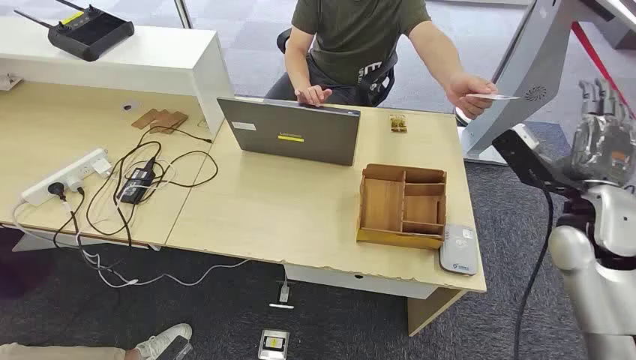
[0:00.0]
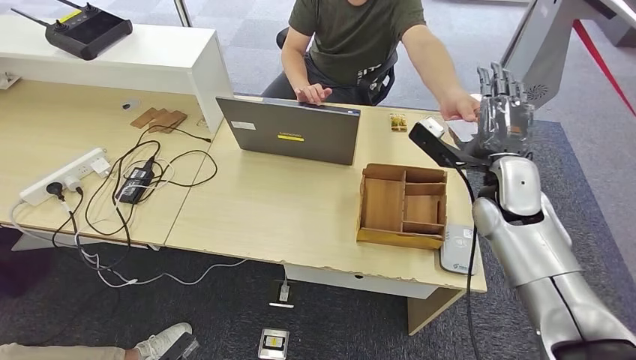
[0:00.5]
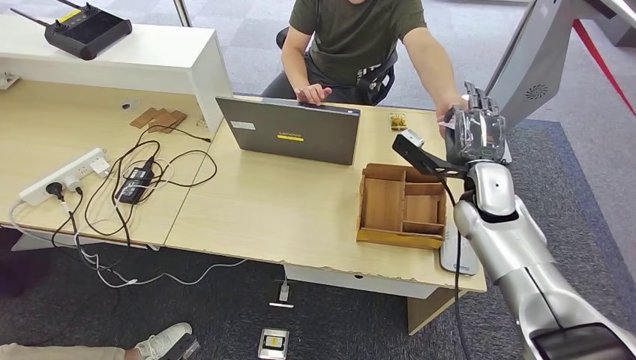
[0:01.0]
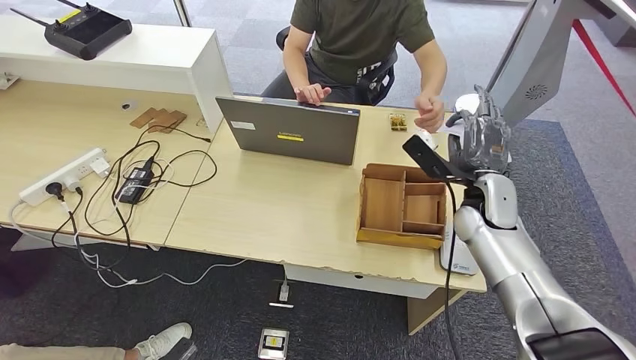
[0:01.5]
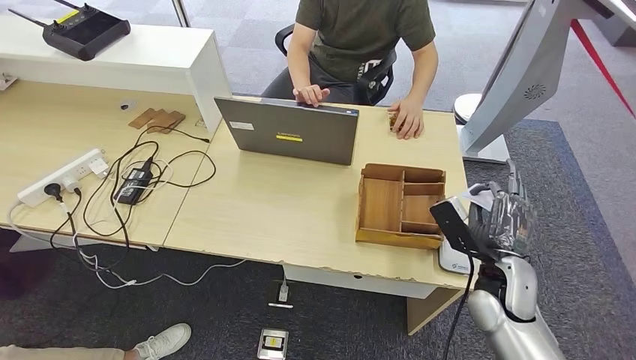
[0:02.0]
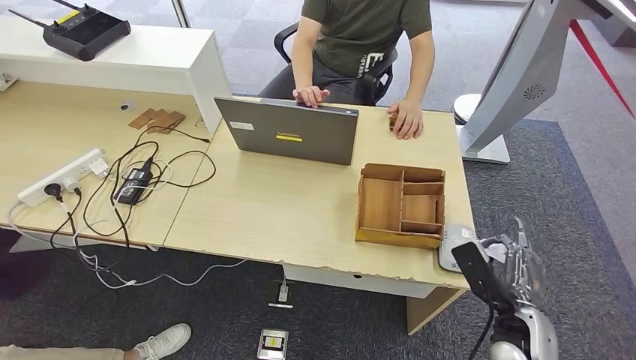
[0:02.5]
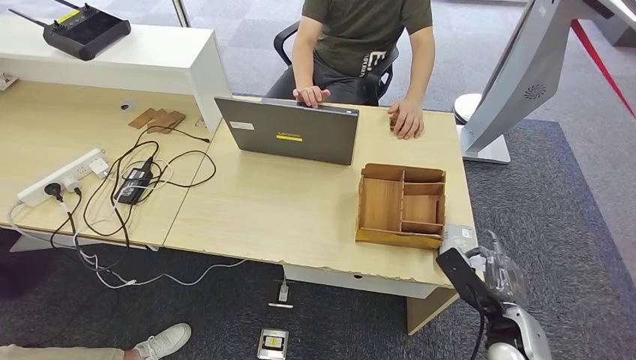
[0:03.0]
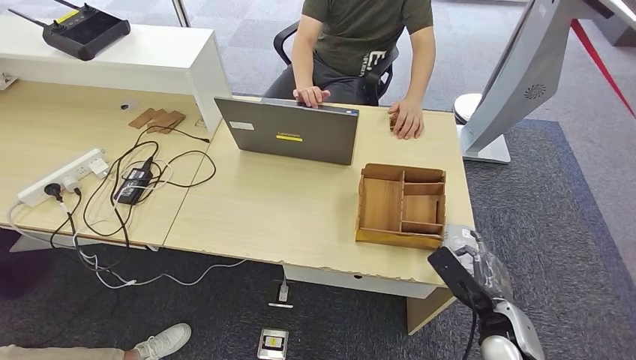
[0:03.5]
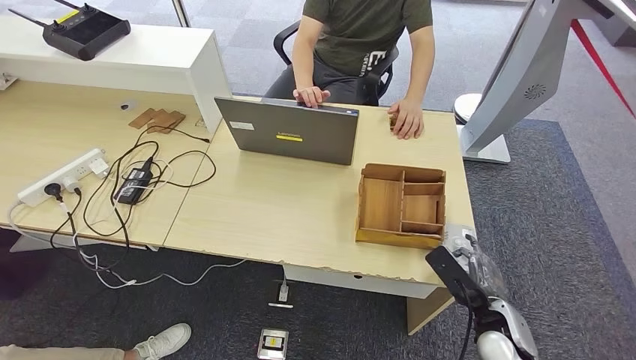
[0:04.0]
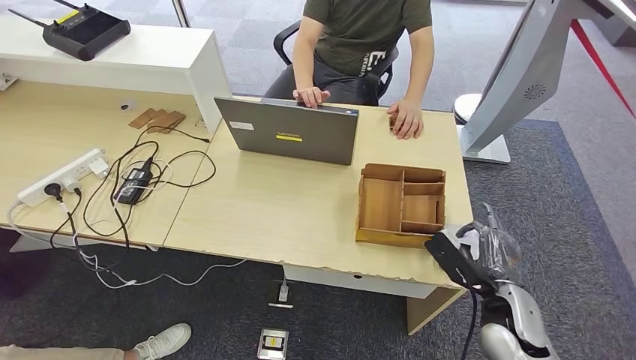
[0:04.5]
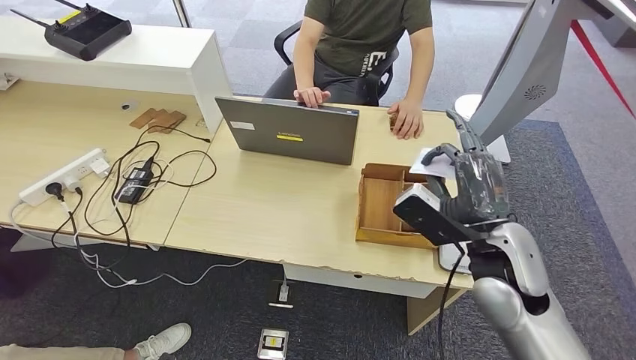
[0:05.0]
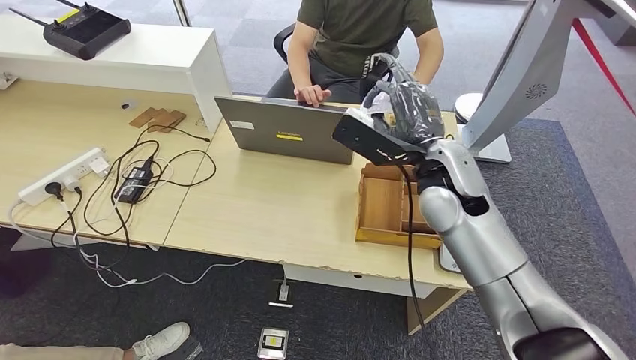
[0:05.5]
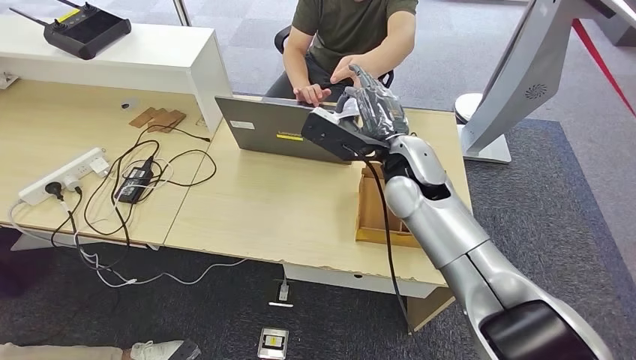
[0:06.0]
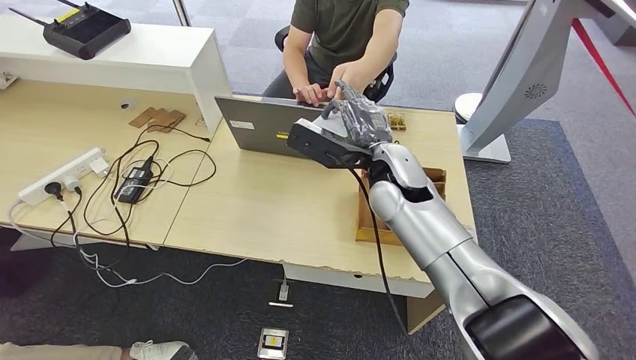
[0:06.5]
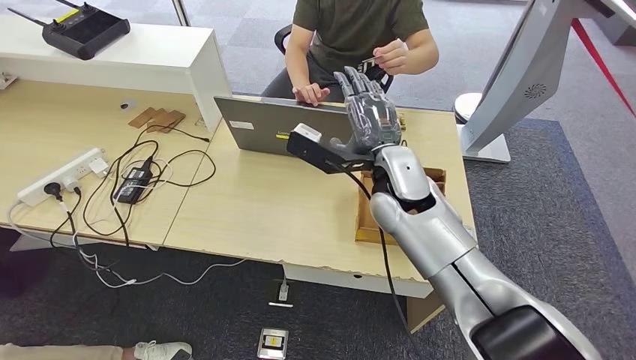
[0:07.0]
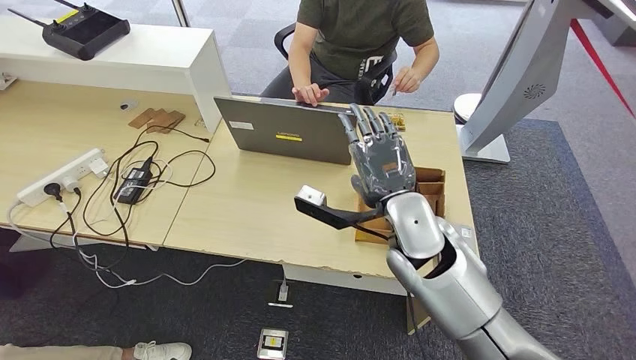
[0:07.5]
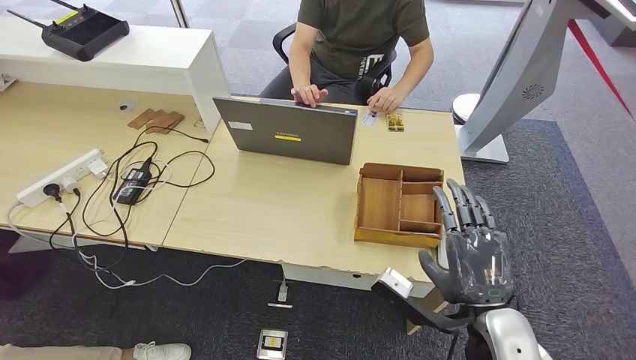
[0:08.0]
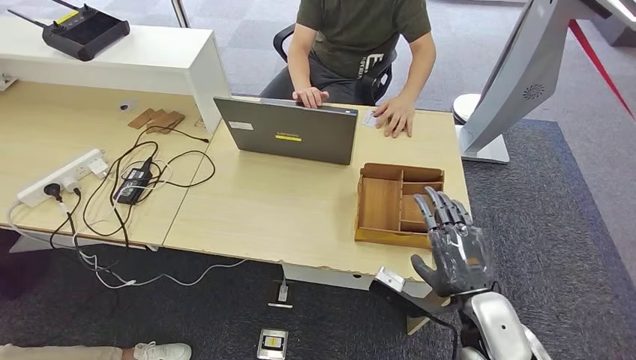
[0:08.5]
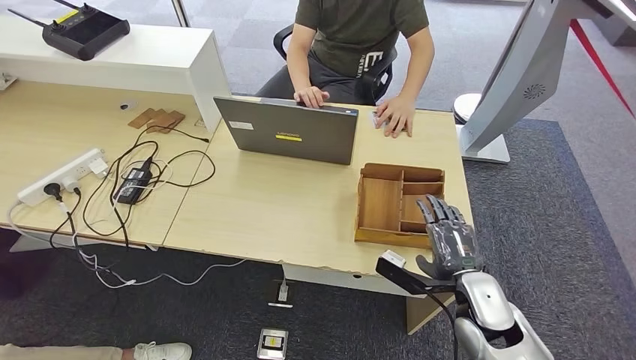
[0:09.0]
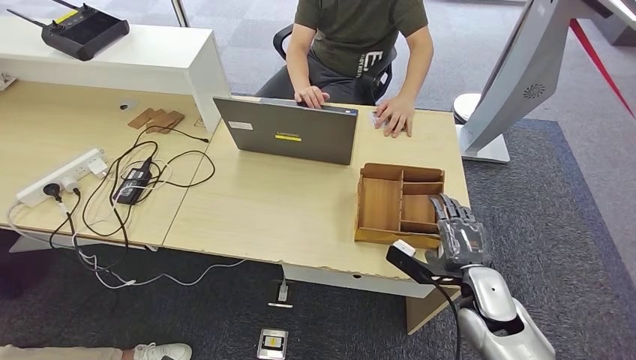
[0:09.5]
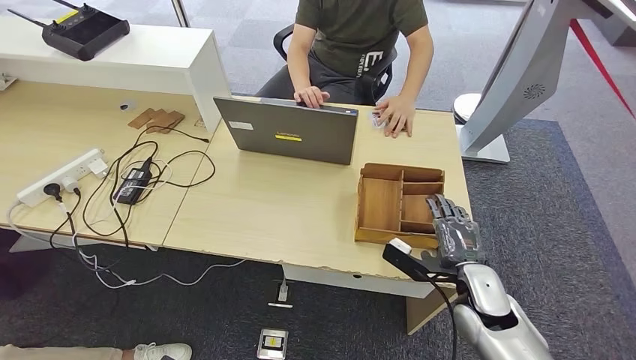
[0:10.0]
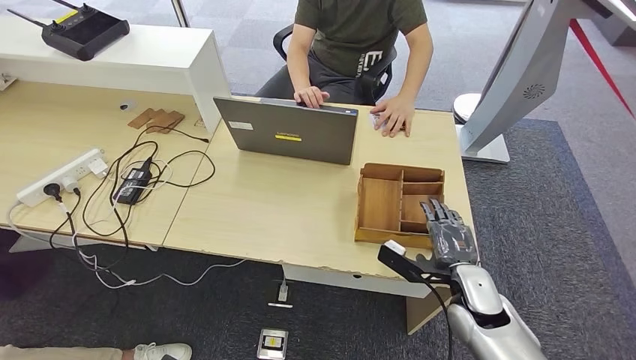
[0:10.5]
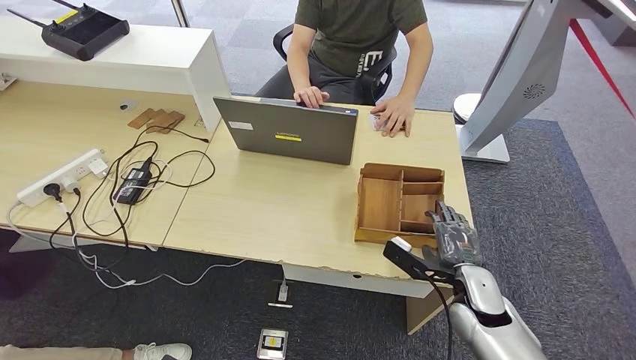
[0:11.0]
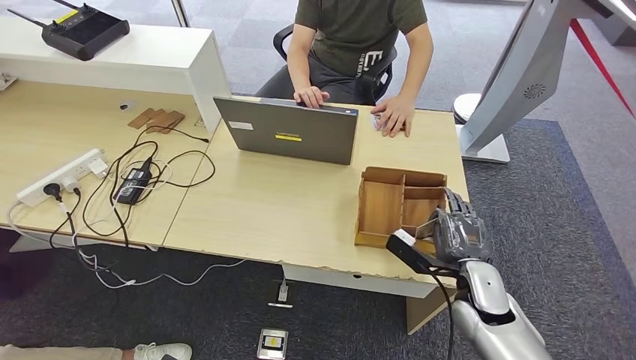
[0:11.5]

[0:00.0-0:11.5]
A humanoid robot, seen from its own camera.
Step, 0:00.0 to 0:02.0: Take the ID card from the person's hand.
Step, 0:02.5 to 0:04.5: Place the ID card on the card reader.
Step, 0:05.0 to 0:07.5: Hand the ID card to the person.
0:02.0 to 0:04.0: The right hand travels downward and backward by approximately 10 cm.
0:04.0 to 0:06.0: The left hand ends up approximately 5 cm from where it was; the right hand shifts roughly 35 cm upward, to the left and forward.
0:06.0 to 0:07.5: The right hand travels backward and downward by some 10 cm.
0:07.5 to 0:09.5: The right hand moves to the right and downward, about 20 cm.
0:09.5 to 0:11.5: The hands make only small movements.

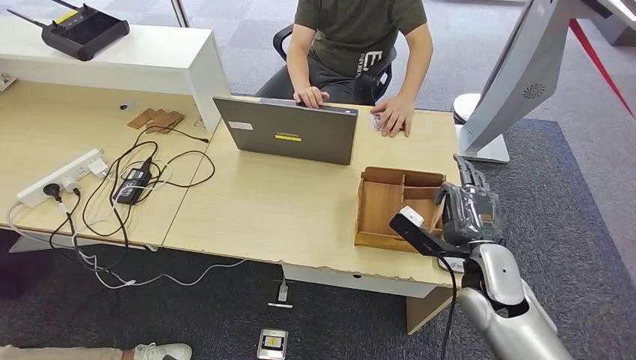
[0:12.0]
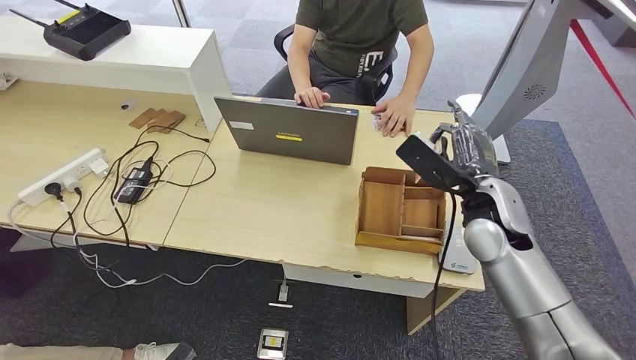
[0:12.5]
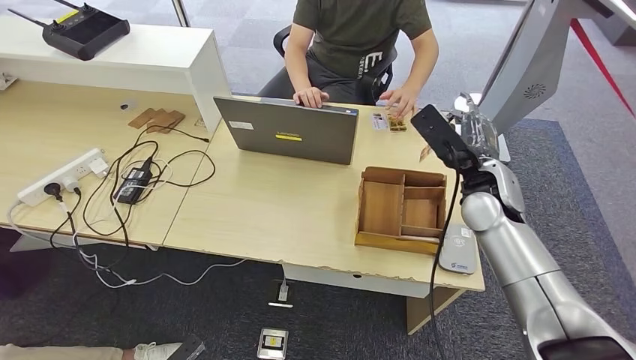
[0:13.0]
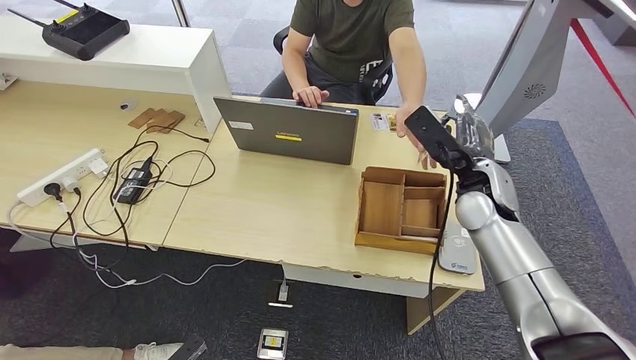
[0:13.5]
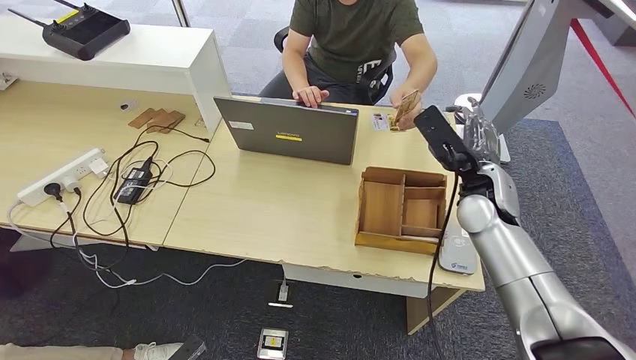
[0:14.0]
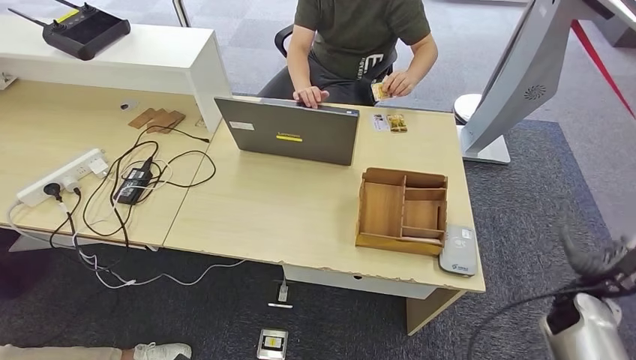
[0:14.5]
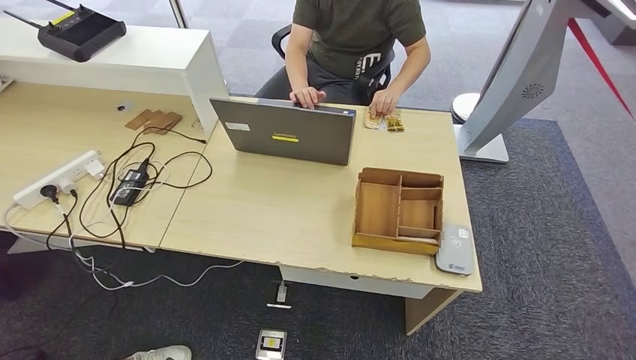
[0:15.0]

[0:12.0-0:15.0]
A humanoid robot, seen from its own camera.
Step, 0:13.0 to 0:15.0: Hand the room key to the person.
0:12.0 to 0:13.5: The left hand is displaced forward by some 5 cm. The right hand moves forward and upward, approximately 15 cm.
0:13.5 to 0:15.0: The right hand shifts about 50 cm downward, backward and to the right. The left hand goes about 5 cm backward.
